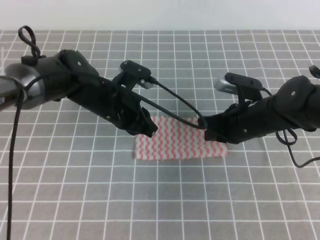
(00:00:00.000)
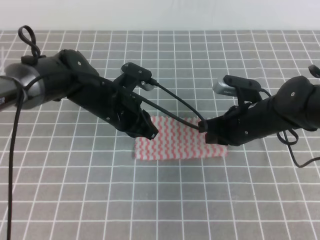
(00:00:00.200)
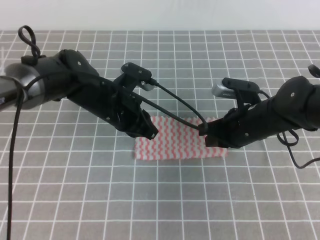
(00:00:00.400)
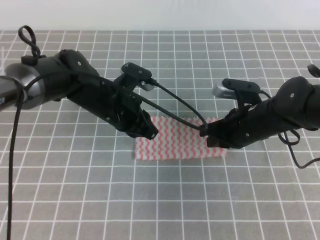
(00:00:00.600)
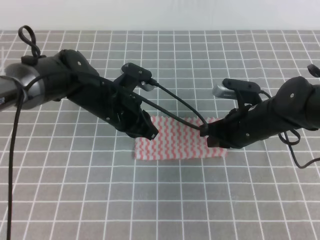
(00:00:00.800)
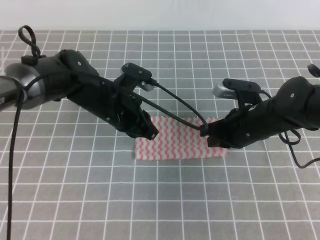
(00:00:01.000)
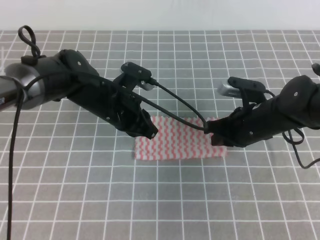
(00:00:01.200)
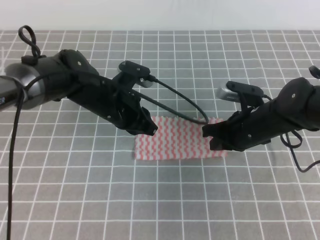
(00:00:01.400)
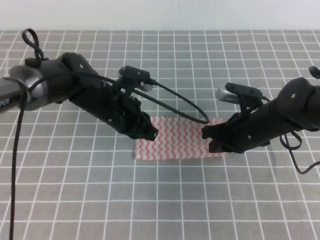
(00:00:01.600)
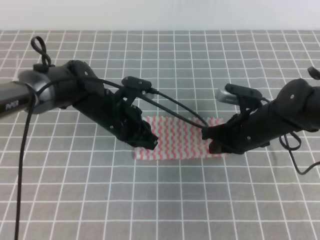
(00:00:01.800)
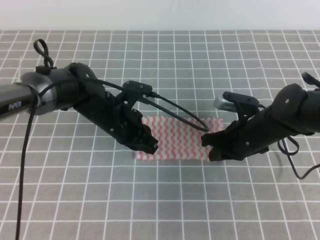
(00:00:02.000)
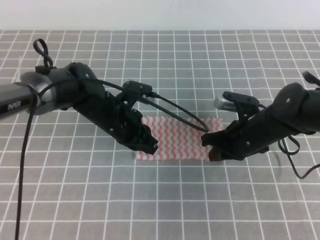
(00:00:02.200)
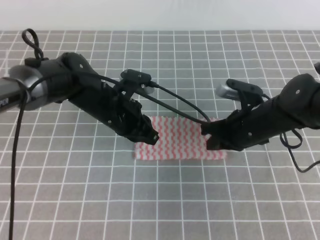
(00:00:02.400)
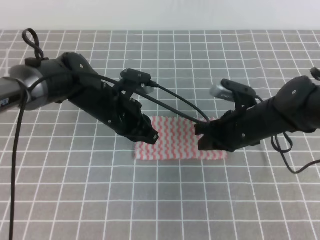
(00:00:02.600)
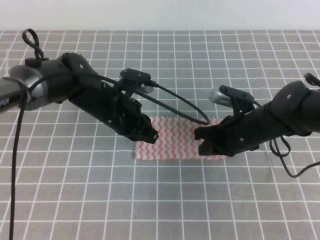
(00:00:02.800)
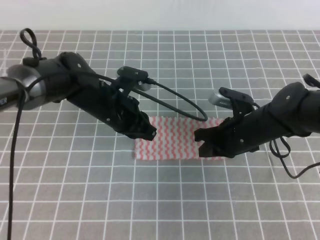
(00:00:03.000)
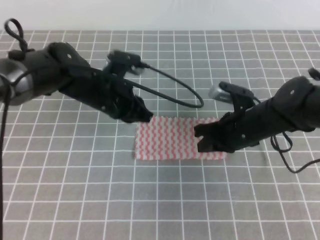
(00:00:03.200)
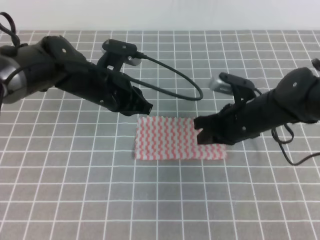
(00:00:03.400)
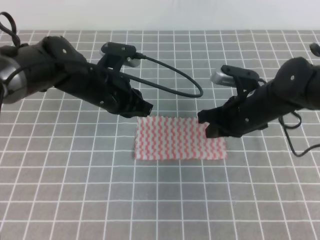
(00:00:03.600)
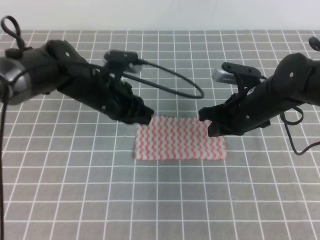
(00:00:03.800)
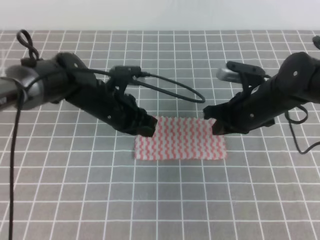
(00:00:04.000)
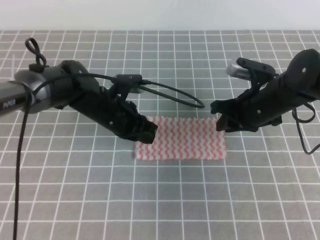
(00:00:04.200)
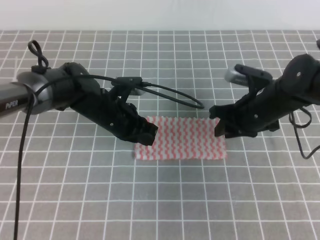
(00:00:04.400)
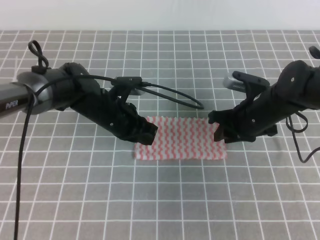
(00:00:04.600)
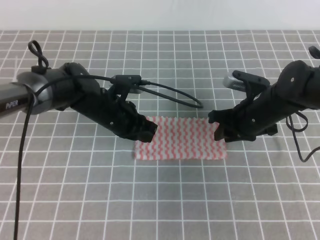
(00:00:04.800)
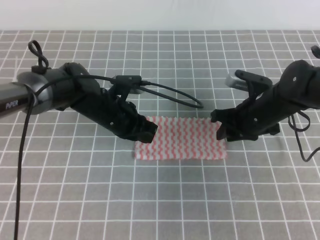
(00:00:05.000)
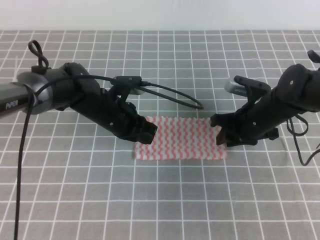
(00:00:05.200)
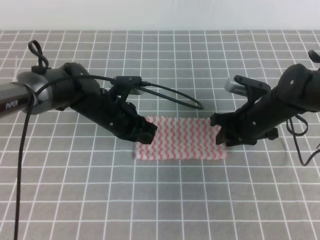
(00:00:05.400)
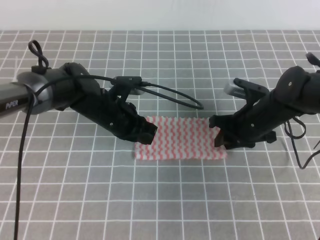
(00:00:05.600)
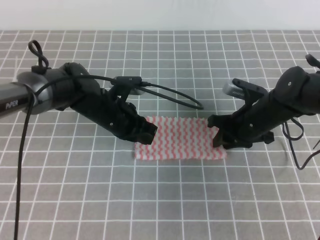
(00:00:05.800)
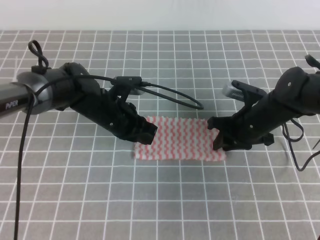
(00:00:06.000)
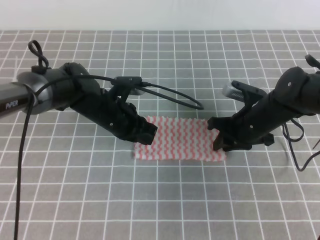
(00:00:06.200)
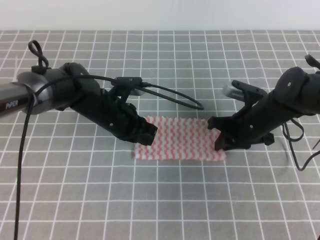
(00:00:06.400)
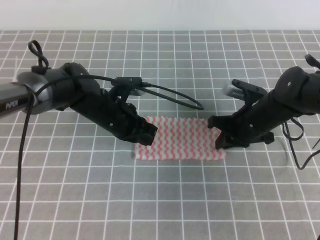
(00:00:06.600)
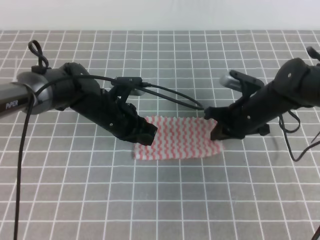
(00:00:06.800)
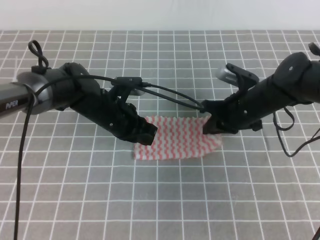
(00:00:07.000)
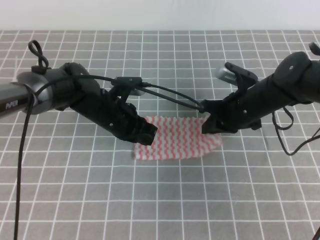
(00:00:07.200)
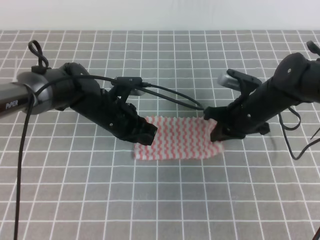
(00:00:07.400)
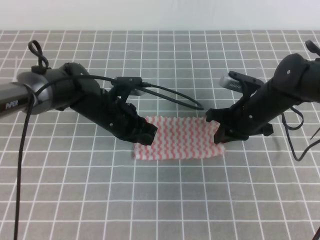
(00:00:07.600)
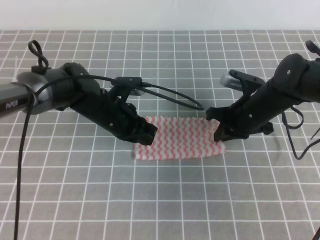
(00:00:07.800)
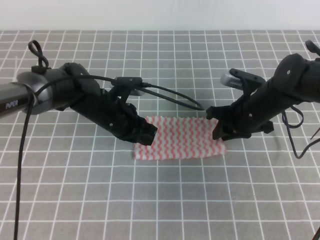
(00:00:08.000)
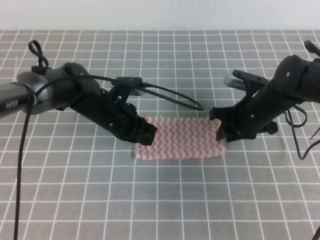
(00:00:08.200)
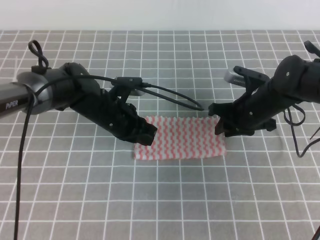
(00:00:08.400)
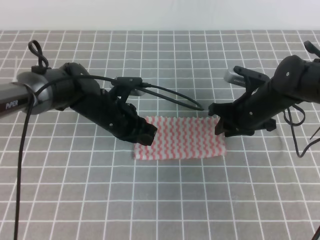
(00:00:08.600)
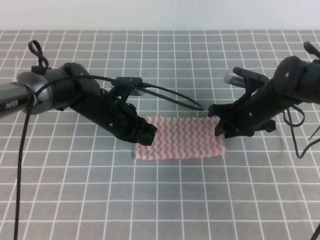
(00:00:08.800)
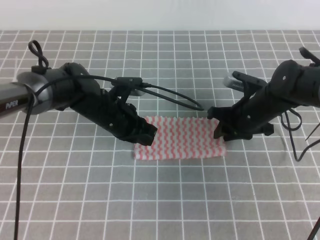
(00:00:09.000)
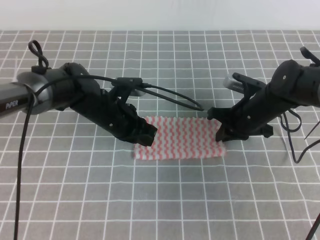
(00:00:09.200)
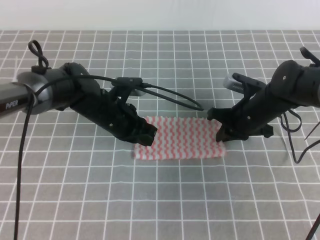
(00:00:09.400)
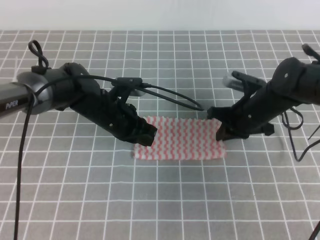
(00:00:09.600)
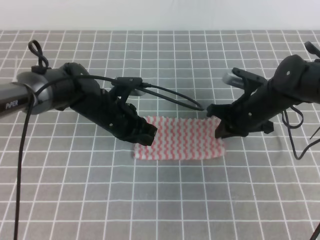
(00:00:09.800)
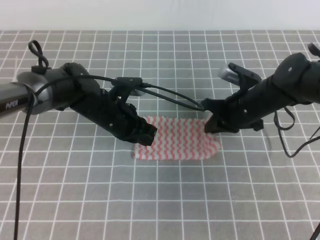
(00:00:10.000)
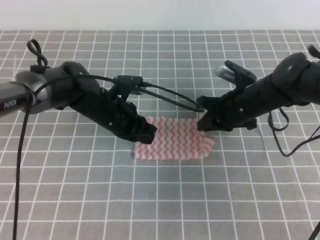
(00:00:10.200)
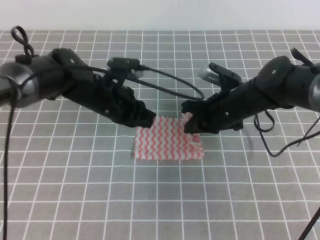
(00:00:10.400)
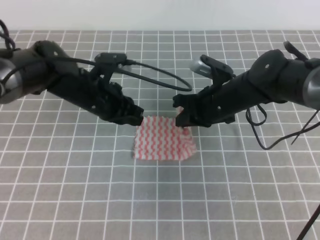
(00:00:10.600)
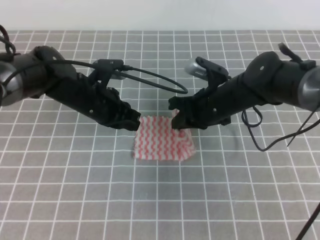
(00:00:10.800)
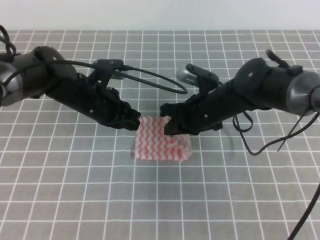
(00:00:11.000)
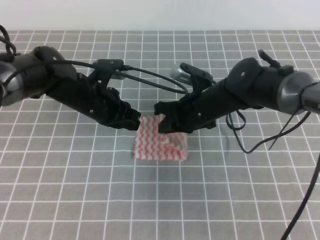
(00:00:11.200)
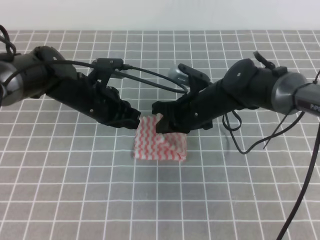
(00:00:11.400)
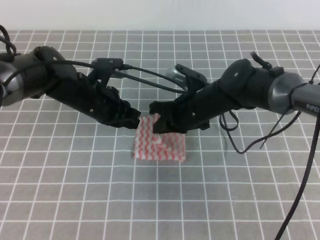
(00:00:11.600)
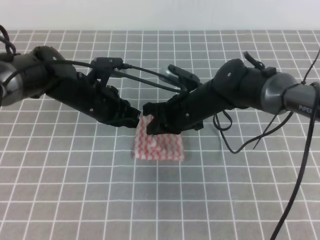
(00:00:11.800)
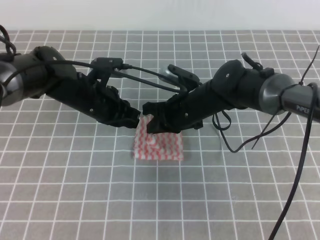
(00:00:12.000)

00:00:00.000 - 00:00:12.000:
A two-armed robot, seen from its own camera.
00:00:00.000 - 00:00:03.000: The grippers stay close to where they were, moving slightly.
00:00:03.000 - 00:00:04.400: The right gripper opens.
00:00:04.400 - 00:00:06.000: There are only small adjustments of the grippers.
00:00:06.000 - 00:00:07.600: The right gripper closes its fingers.
00:00:07.600 - 00:00:09.000: The right gripper opens.
00:00:09.000 - 00:00:10.400: The right gripper changes place by roughly 5 cm, and closes its fingers.
00:00:10.400 - 00:00:12.000: The right gripper goes roughly 10 cm to the left.

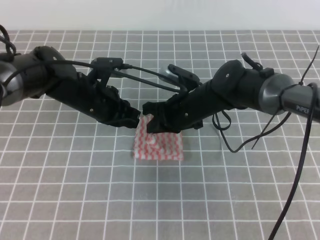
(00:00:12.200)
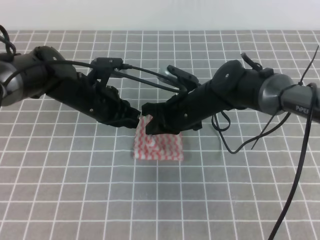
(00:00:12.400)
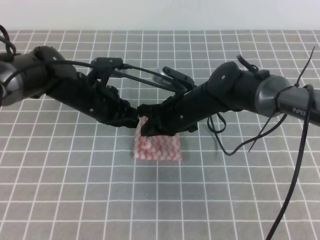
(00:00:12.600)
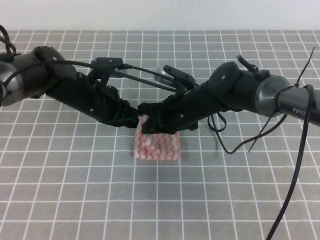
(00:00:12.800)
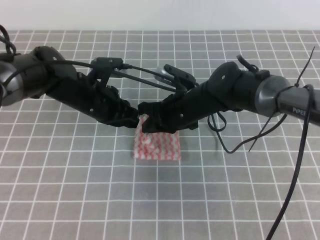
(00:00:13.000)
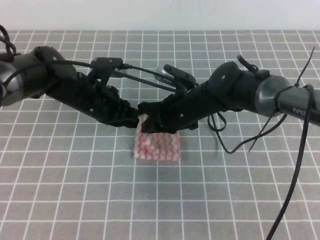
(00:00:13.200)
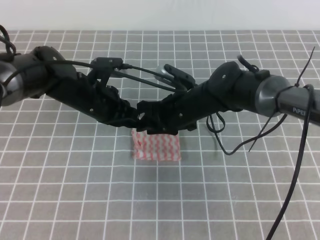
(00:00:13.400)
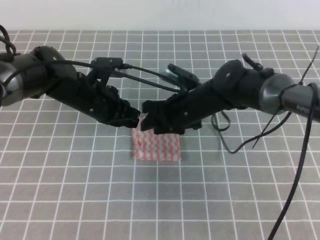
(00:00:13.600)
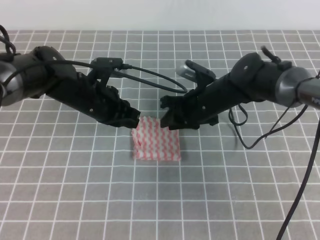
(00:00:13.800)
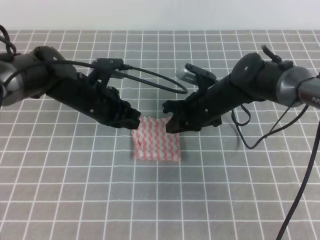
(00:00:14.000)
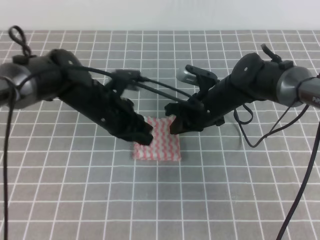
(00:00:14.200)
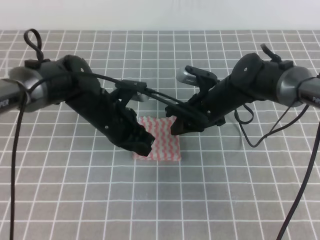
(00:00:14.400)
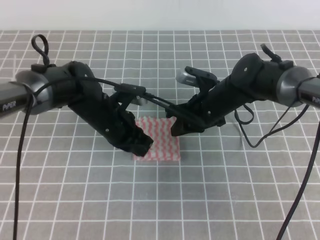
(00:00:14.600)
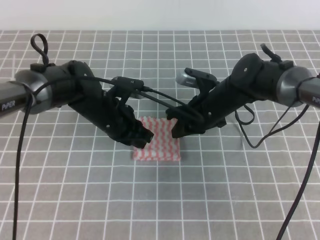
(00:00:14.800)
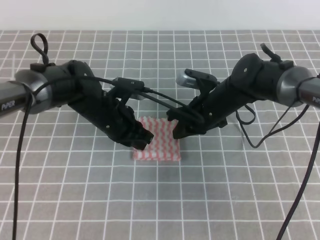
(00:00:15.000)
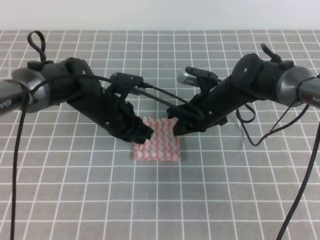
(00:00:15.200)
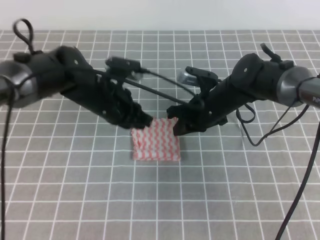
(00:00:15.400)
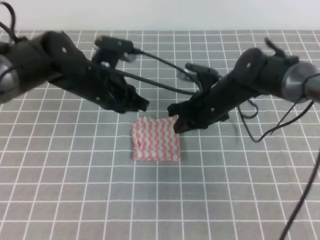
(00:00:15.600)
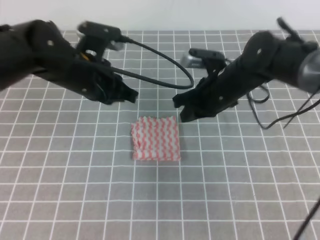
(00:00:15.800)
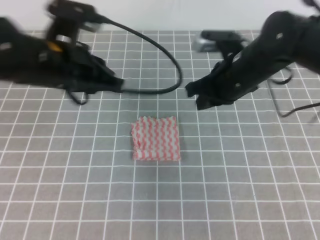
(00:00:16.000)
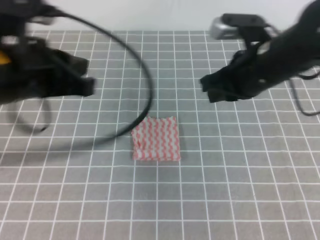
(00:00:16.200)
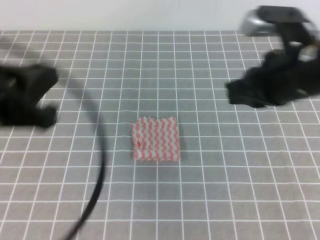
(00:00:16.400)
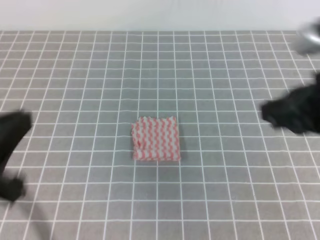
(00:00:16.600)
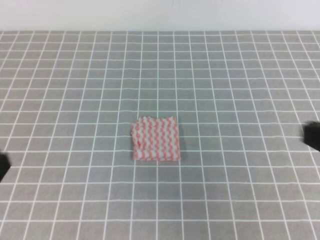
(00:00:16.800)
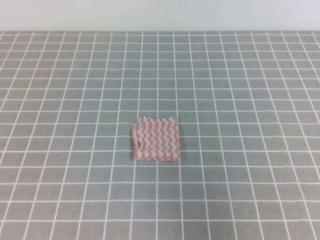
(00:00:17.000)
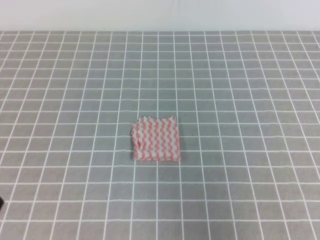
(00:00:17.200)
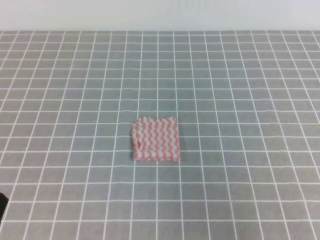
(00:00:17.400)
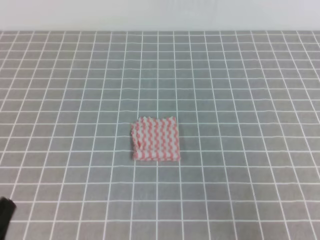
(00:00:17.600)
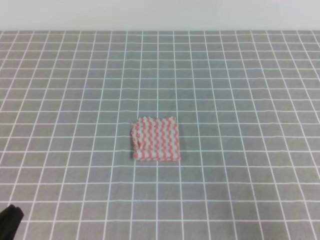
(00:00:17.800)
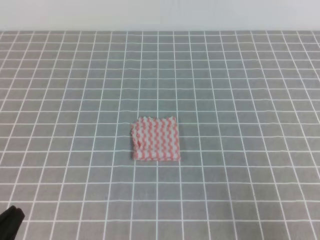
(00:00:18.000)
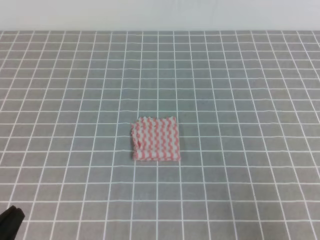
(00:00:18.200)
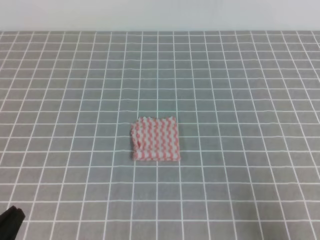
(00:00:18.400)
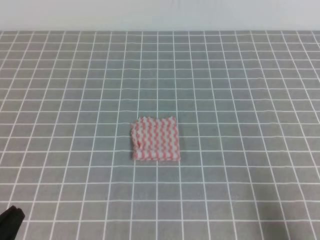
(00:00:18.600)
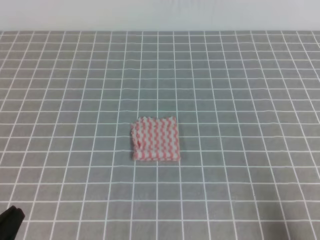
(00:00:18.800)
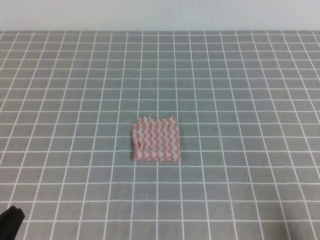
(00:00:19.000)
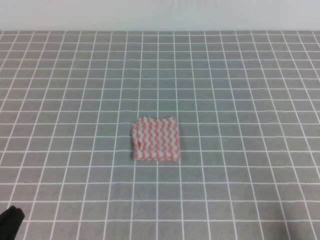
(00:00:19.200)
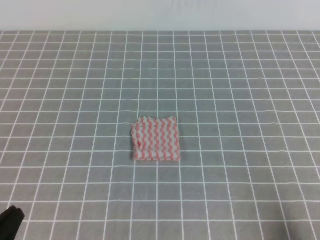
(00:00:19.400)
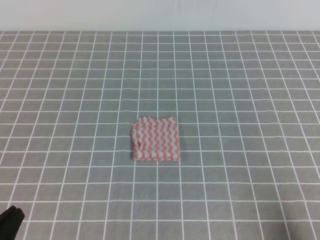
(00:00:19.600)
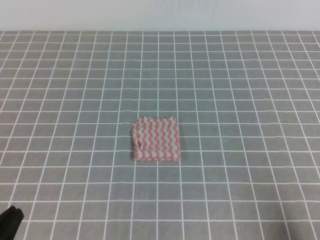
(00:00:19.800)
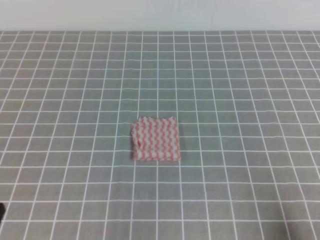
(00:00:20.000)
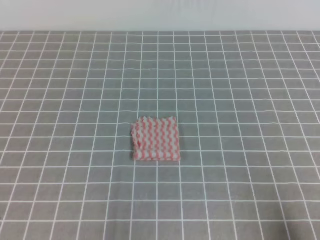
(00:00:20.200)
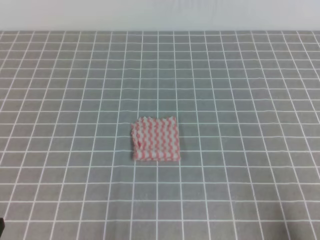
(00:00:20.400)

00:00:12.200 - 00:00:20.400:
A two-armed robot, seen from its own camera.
Step, 00:00:12.200 - 00:00:20.400: Fold the towel.
00:00:12.200 - 00:00:13.800: The right gripper opens.
00:00:13.800 - 00:00:15.400: The right gripper closes its fingers.
00:00:15.400 - 00:00:17.200: The right gripper moves backward, to the right and upward, some 40 cm. The left gripper travels backward and to the left by roughly 35 cm.
00:00:17.200 - 00:00:18.800: The right gripper shifts roughly 15 cm downward, while the left gripper goes some 5 cm downward.
